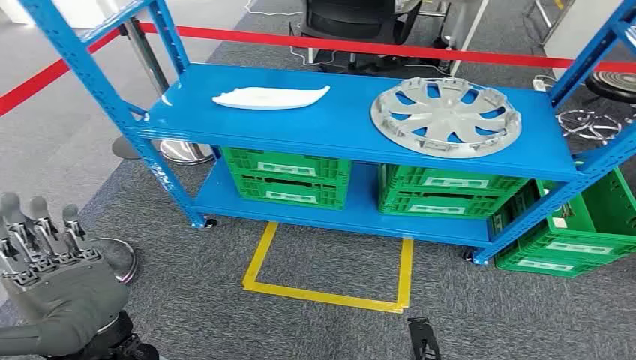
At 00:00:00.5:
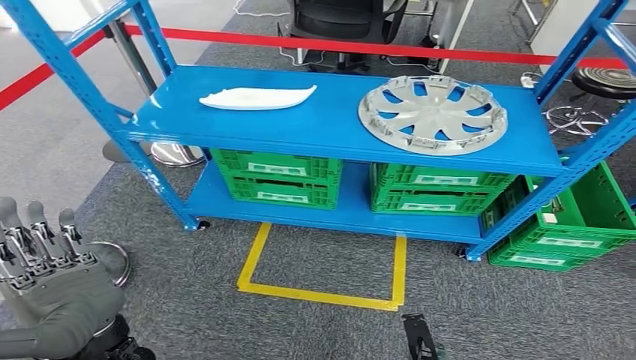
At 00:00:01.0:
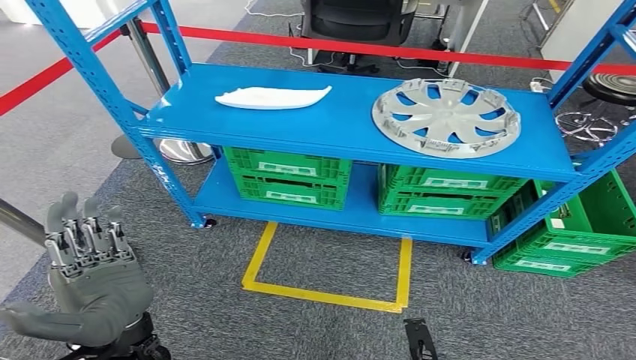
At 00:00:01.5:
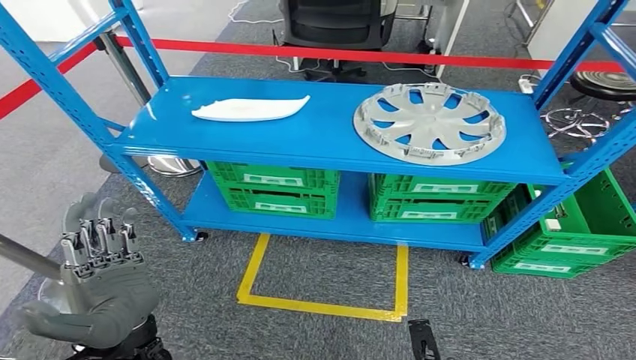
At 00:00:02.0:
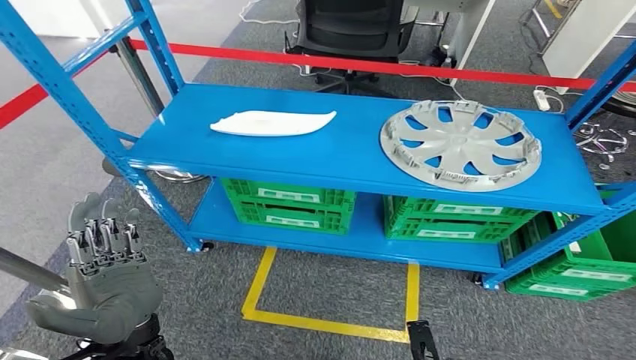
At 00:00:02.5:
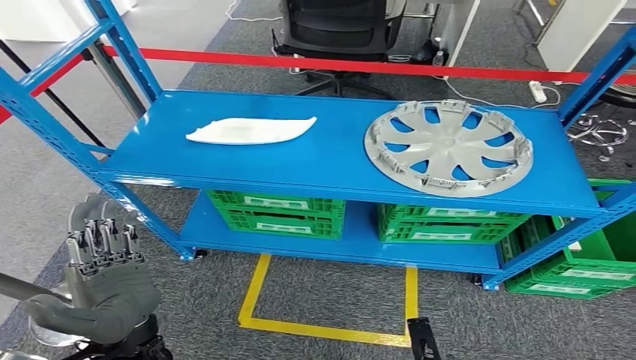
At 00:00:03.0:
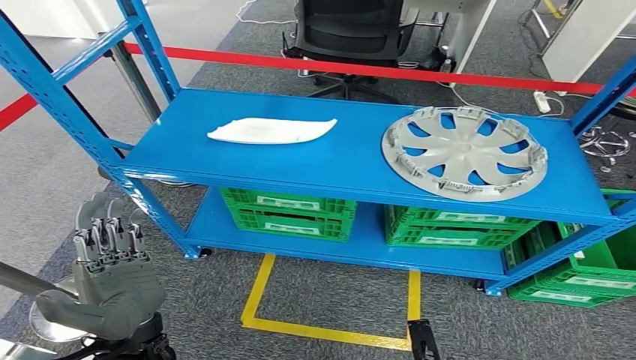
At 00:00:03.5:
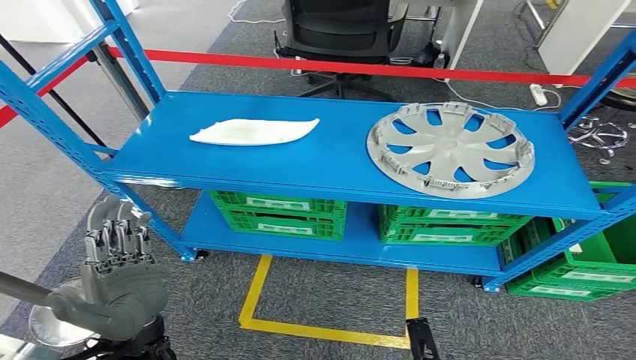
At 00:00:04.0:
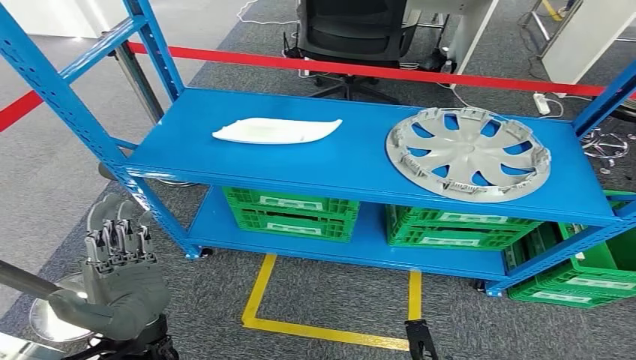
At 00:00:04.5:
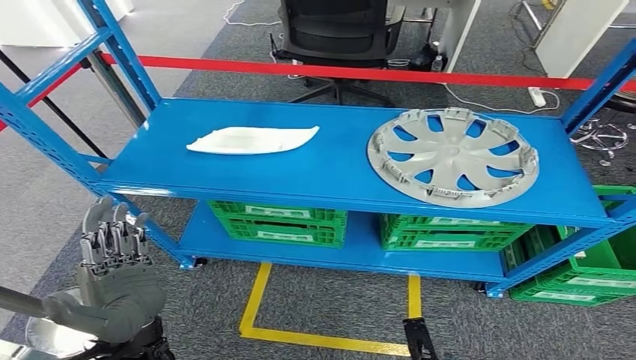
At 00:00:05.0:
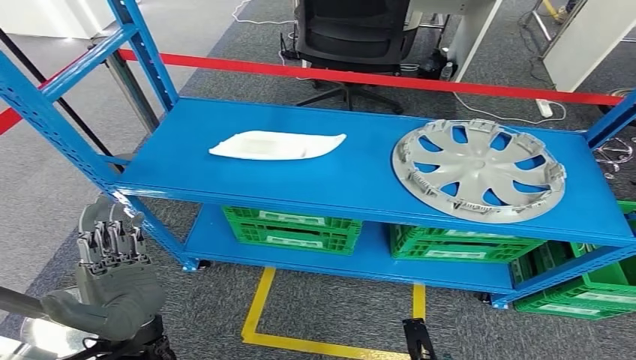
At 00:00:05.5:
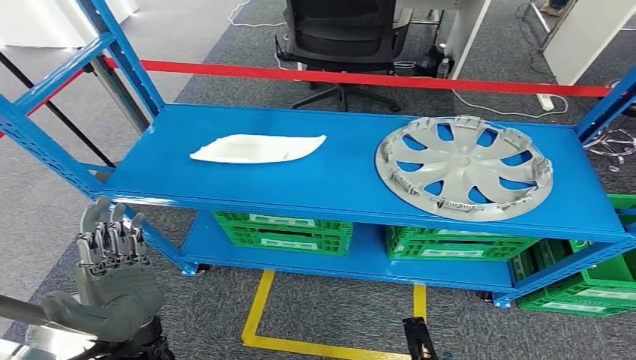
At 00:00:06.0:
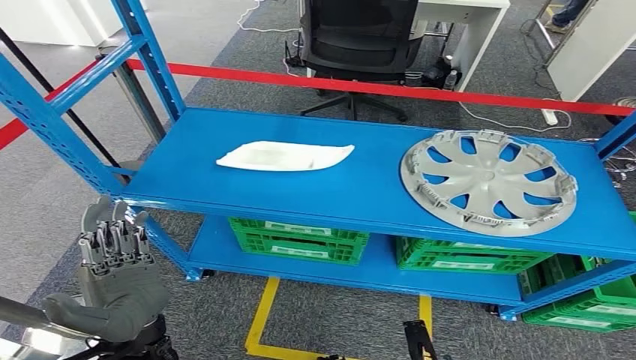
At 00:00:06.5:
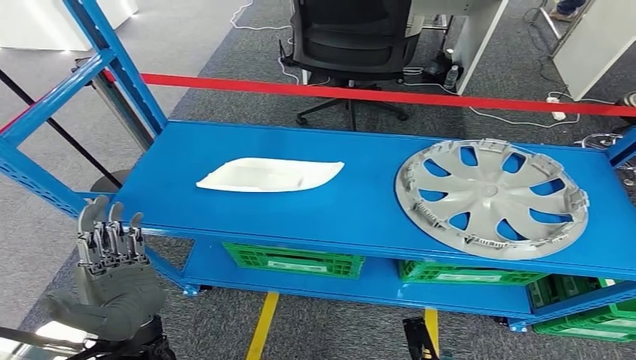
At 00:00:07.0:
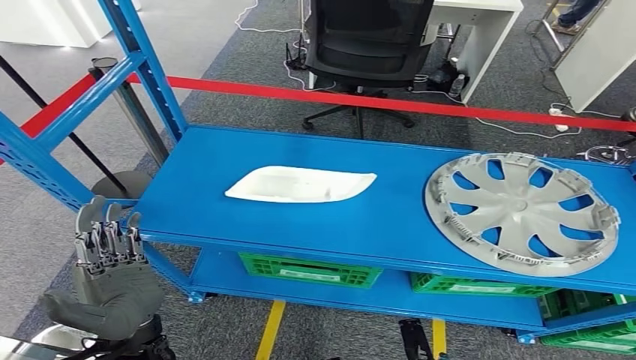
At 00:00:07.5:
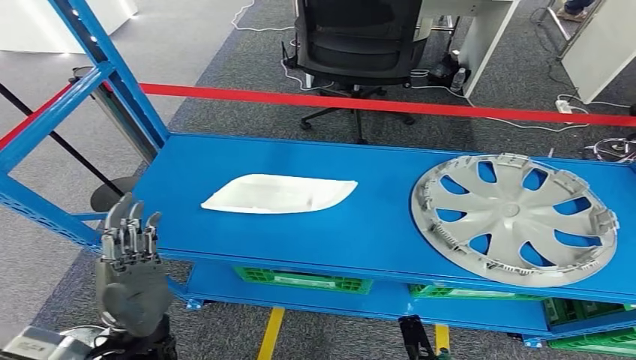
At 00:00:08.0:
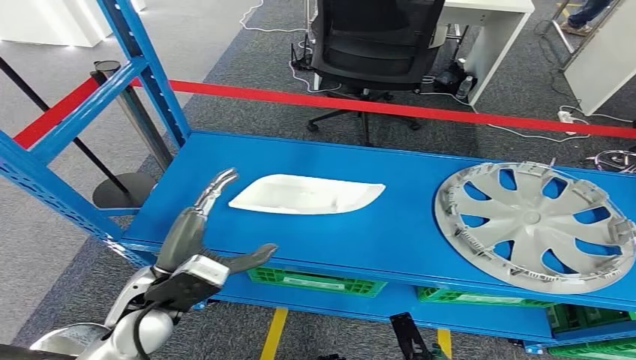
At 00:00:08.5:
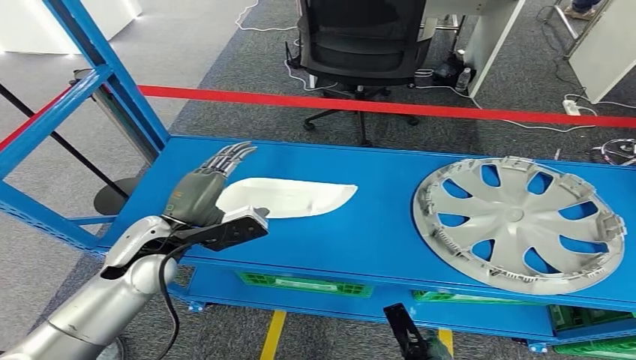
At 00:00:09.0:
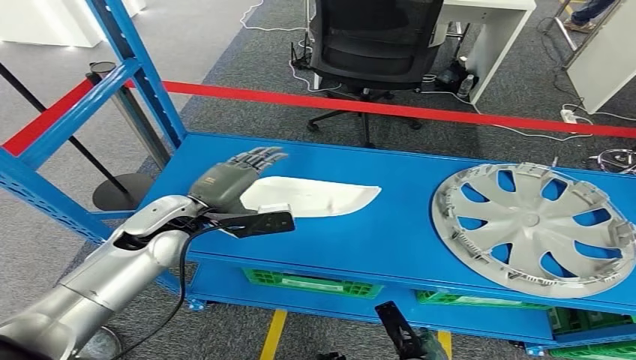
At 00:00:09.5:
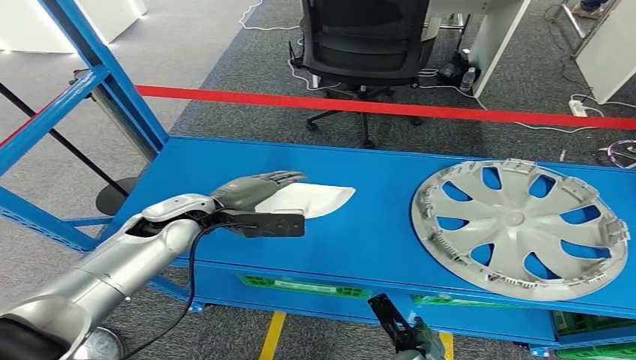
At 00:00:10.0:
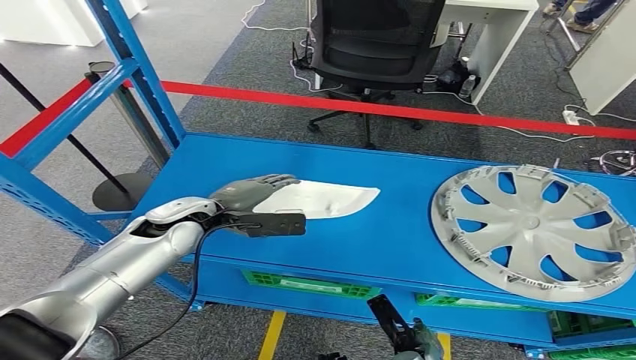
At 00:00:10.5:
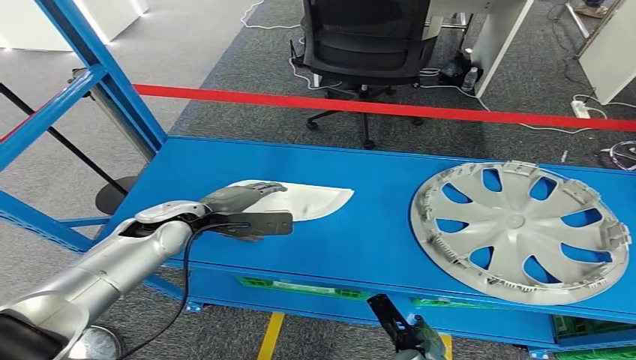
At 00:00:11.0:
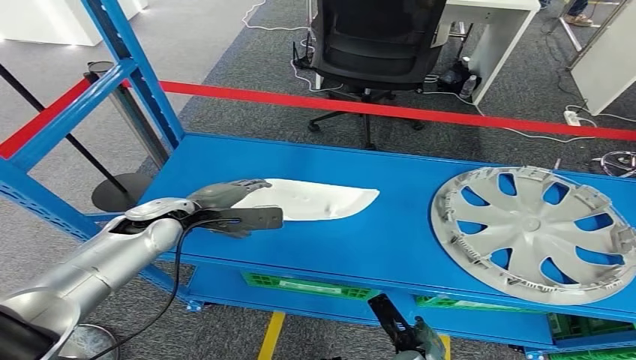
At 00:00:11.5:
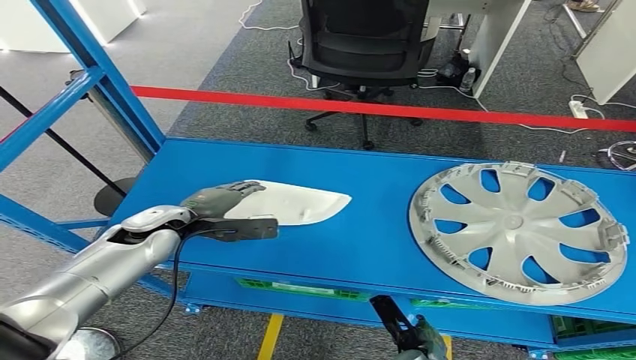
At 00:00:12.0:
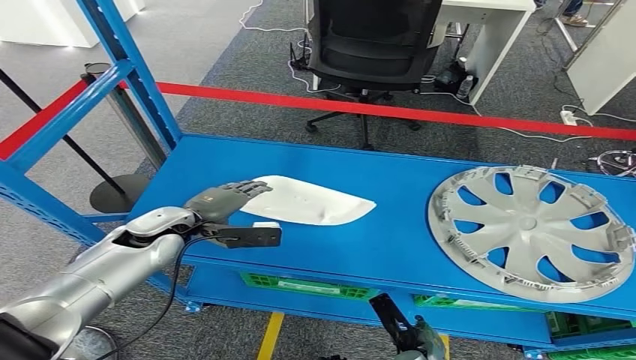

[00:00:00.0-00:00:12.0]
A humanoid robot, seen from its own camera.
00:00:10.0 to 00:00:12.0: The left hand ends up about 5 cm from where it was.

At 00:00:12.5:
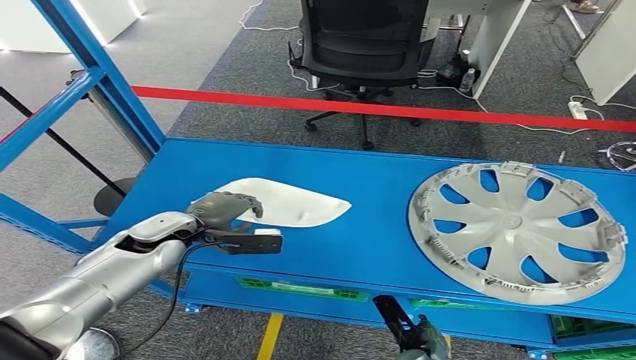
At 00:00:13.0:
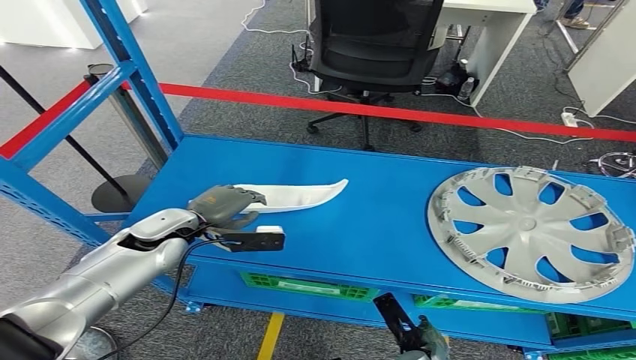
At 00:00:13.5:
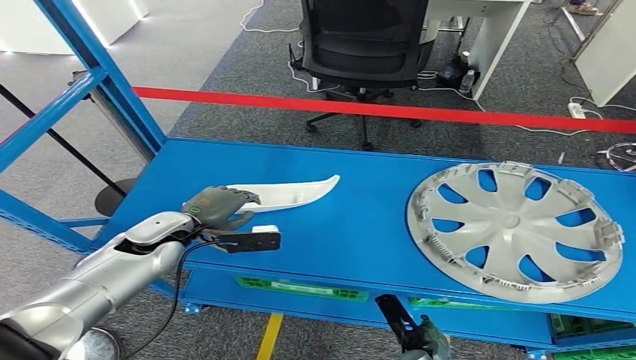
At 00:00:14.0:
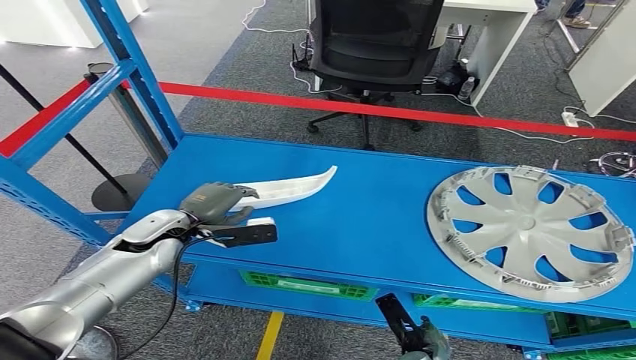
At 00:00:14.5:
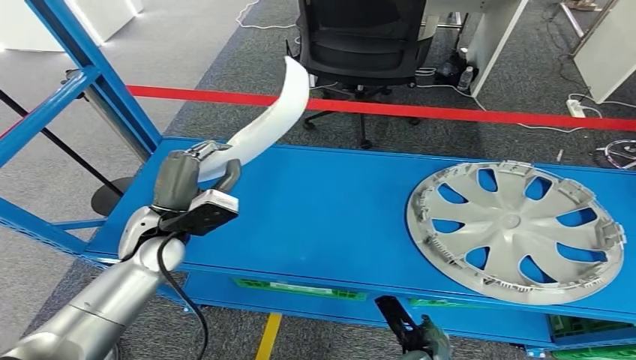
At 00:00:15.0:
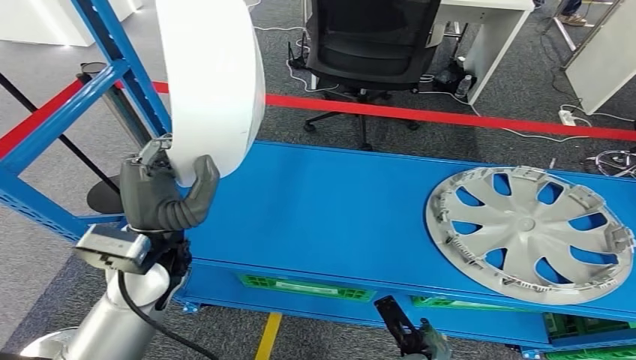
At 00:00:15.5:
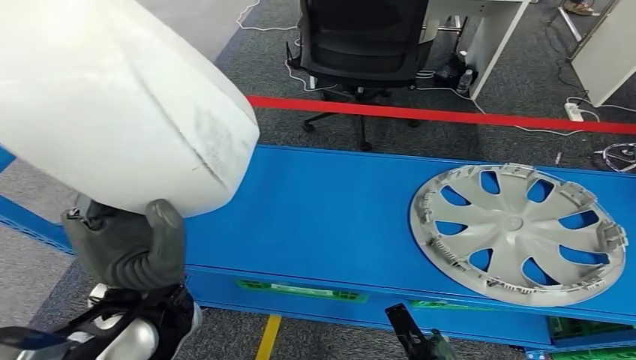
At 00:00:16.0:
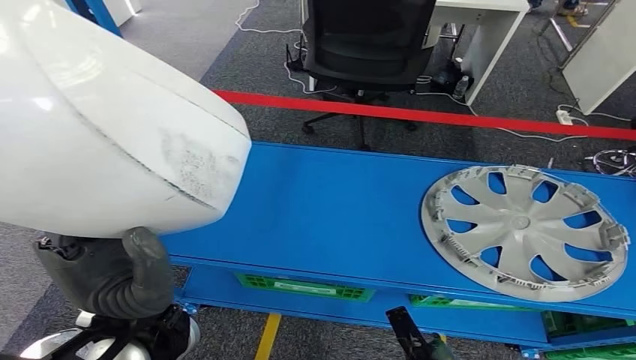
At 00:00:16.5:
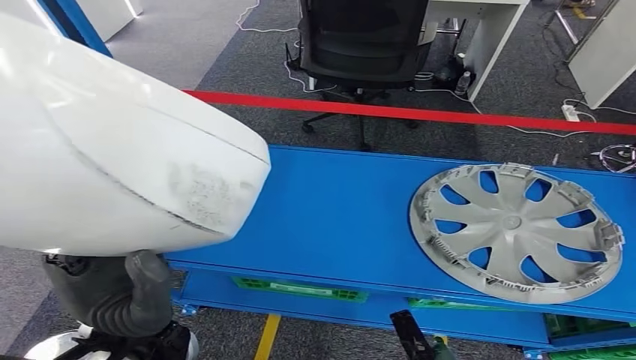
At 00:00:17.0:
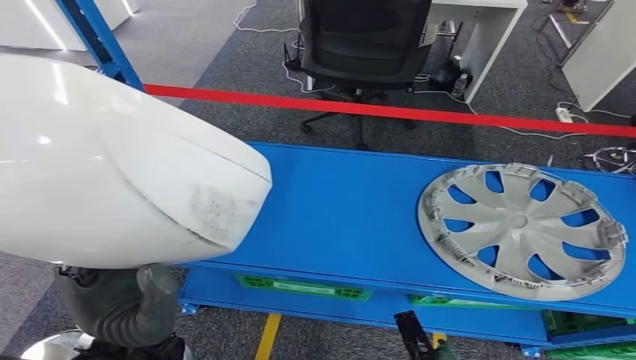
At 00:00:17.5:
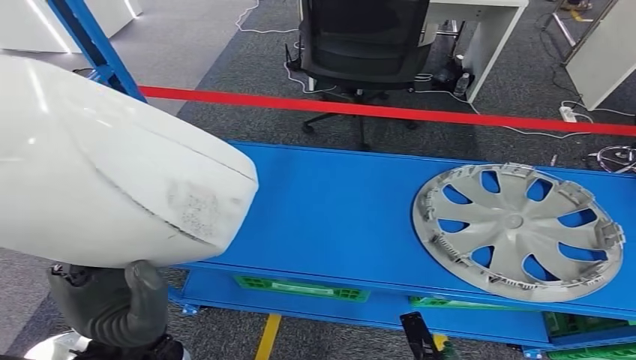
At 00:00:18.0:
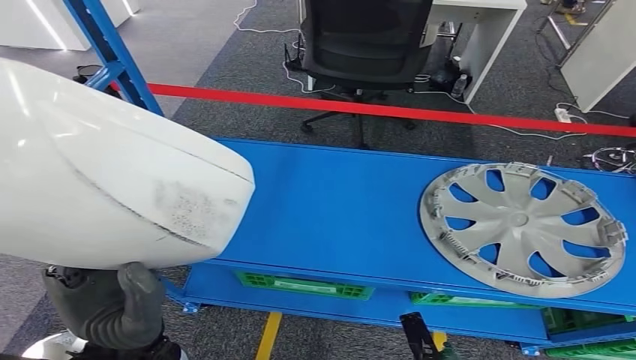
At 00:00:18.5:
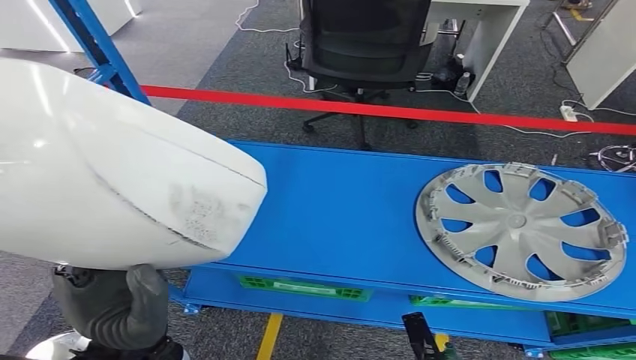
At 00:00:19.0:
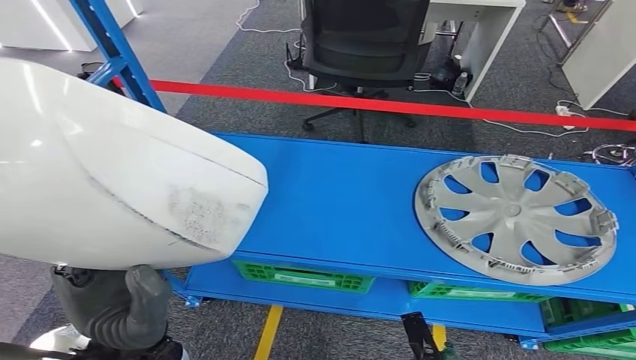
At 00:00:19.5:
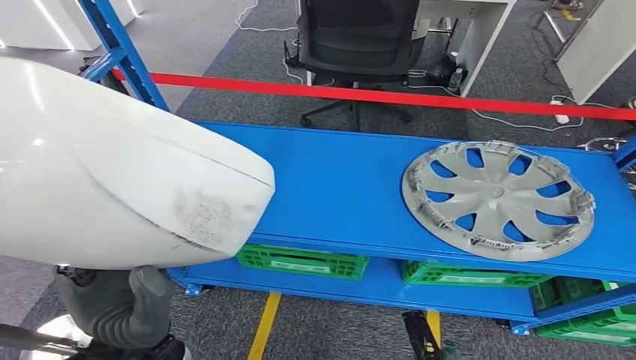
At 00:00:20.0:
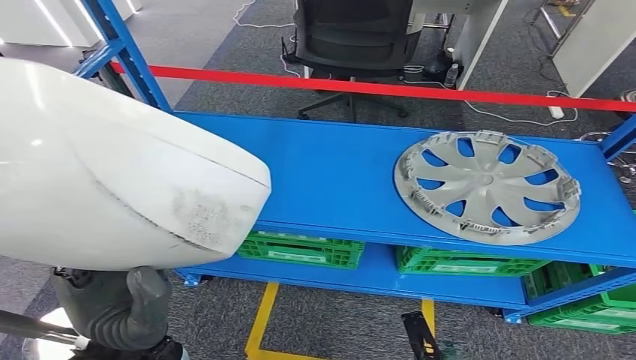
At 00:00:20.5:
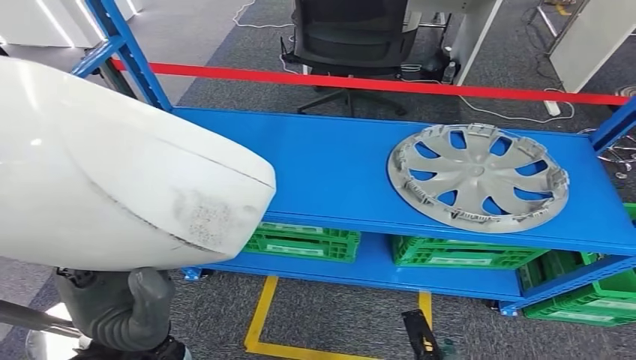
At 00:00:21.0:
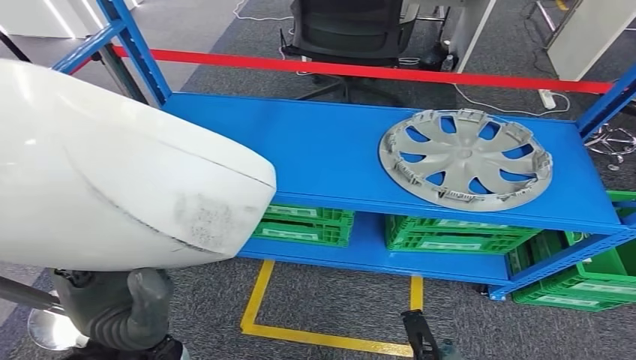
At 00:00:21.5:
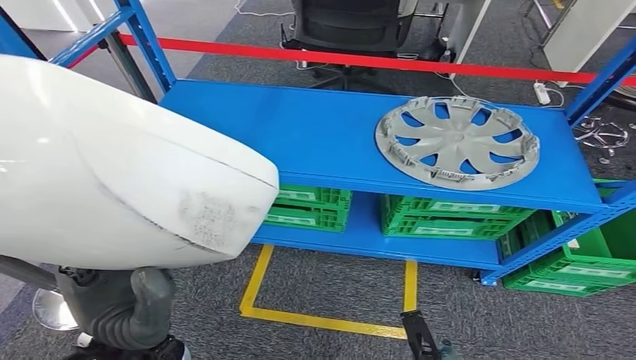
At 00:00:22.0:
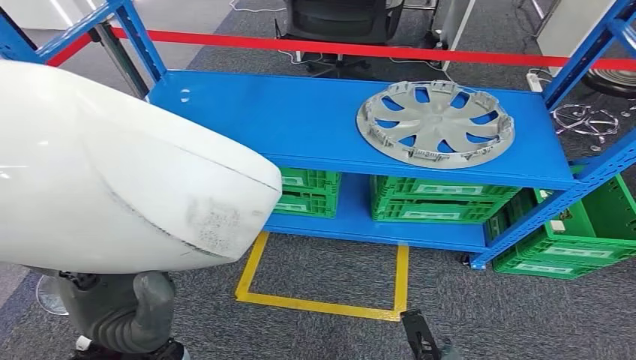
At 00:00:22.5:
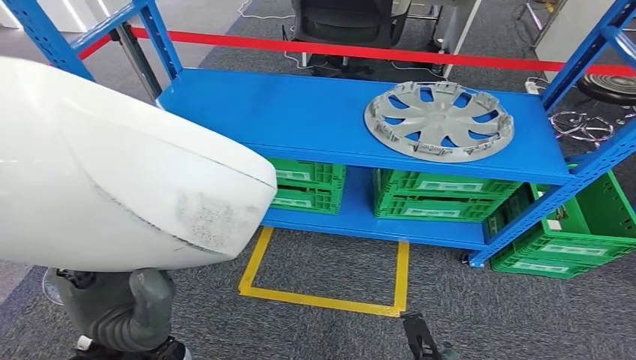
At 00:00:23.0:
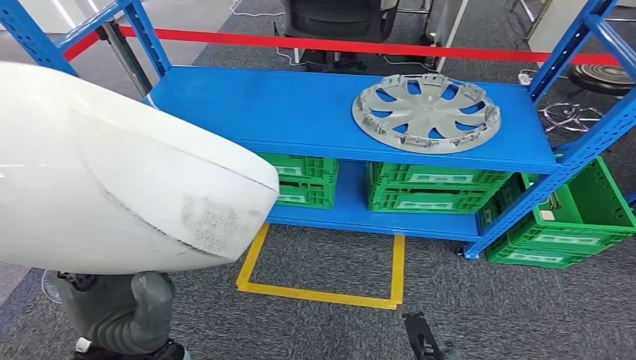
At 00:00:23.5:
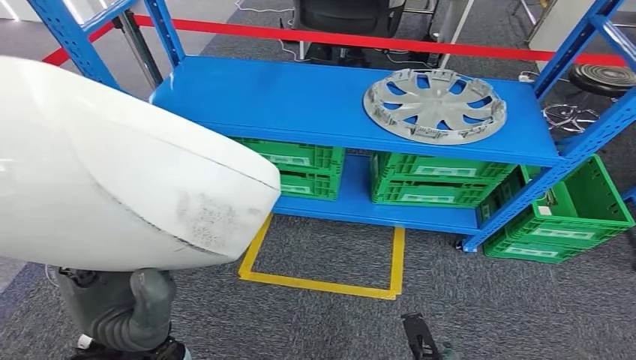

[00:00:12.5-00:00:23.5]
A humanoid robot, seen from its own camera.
Step, 00:00:12.5 to 00:00:15.0: Pick up the small parts from the shelf.
00:00:12.5 to 00:00:14.5: The left hand changes place by some 5 cm.
